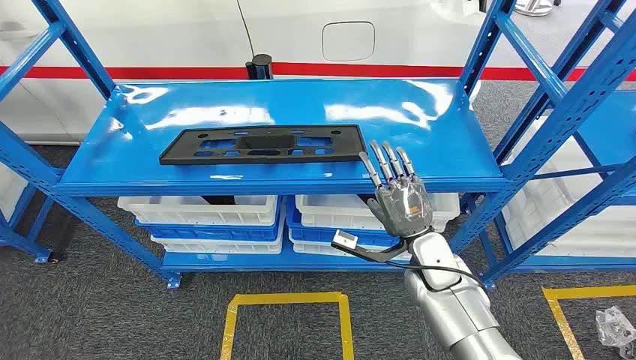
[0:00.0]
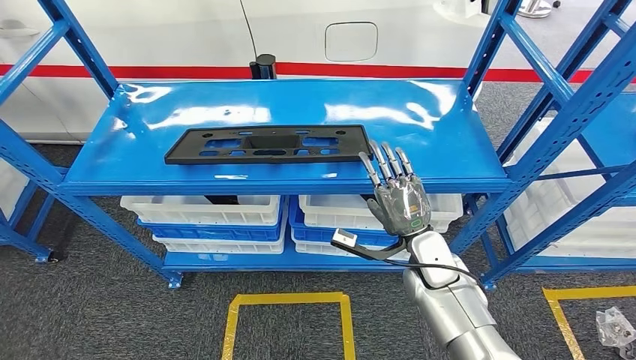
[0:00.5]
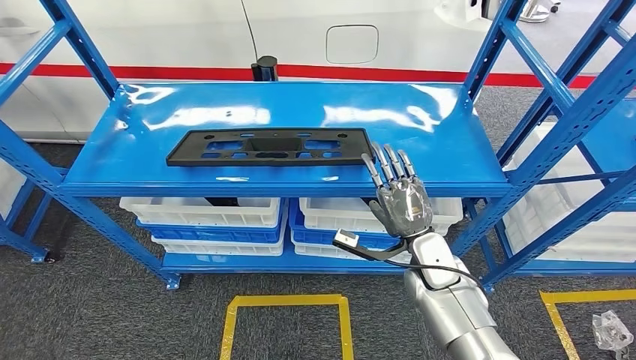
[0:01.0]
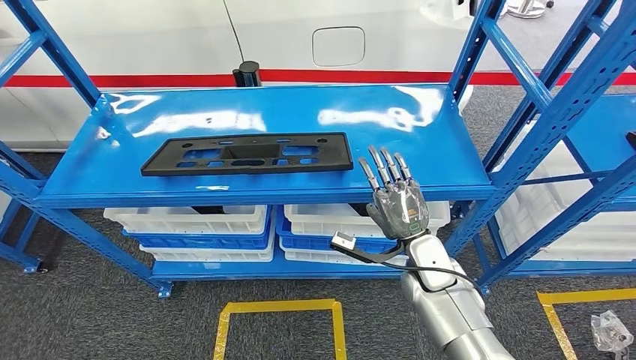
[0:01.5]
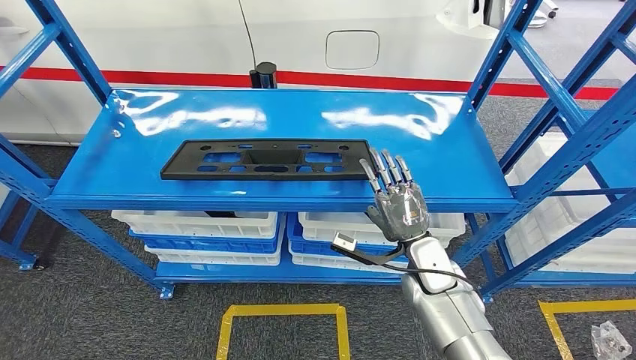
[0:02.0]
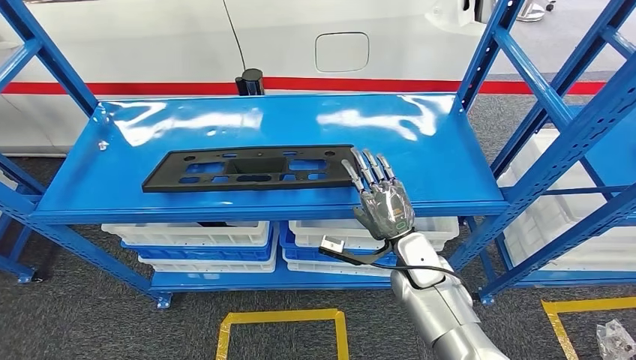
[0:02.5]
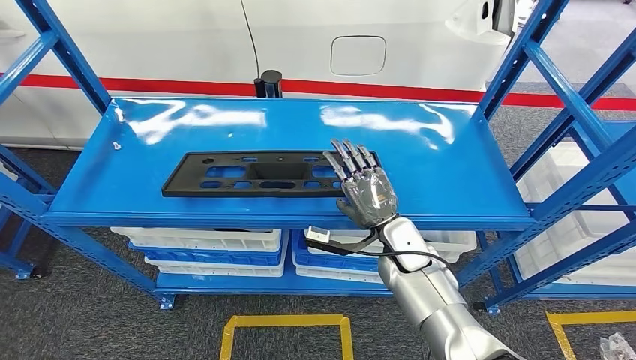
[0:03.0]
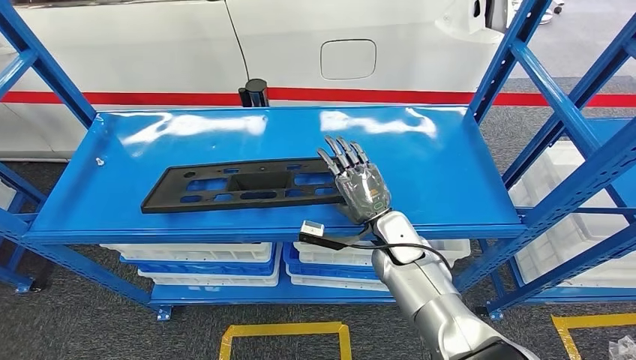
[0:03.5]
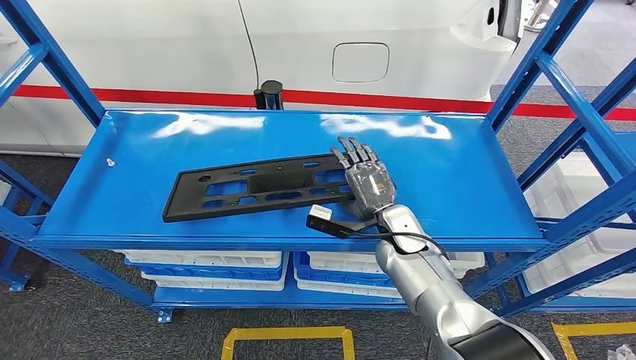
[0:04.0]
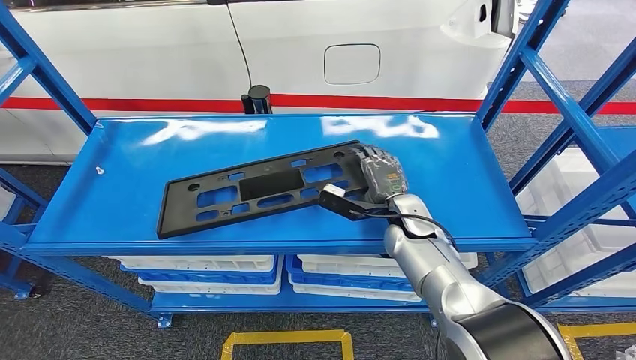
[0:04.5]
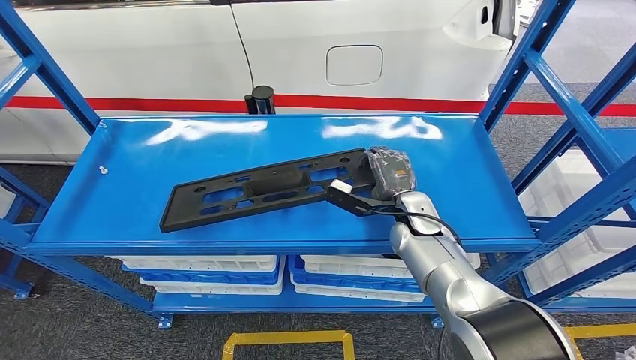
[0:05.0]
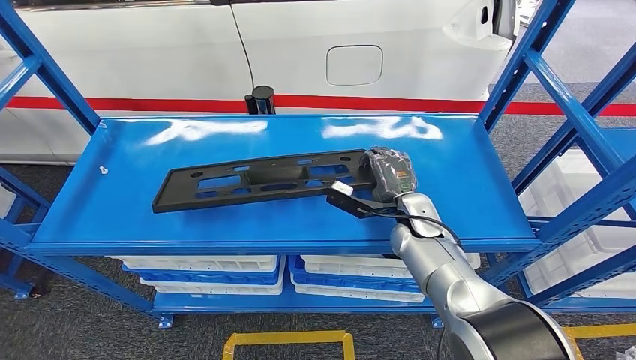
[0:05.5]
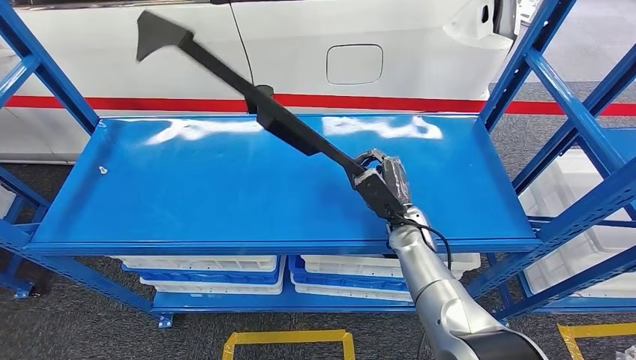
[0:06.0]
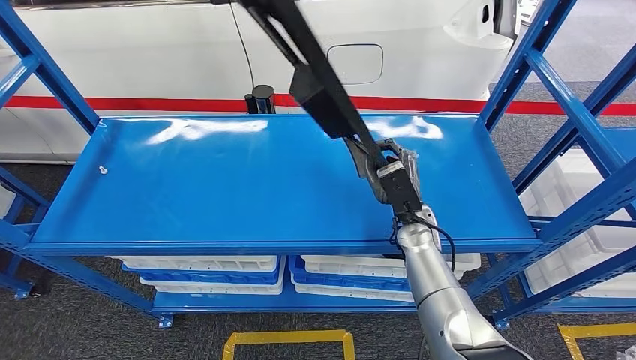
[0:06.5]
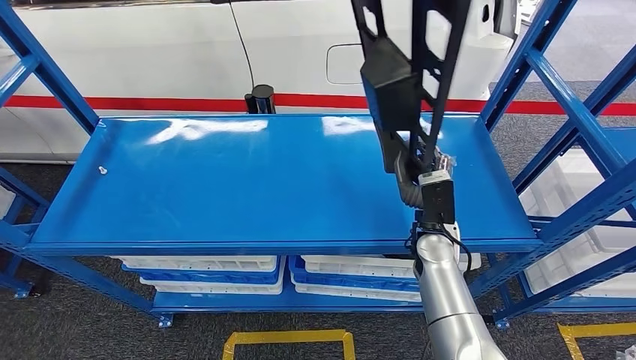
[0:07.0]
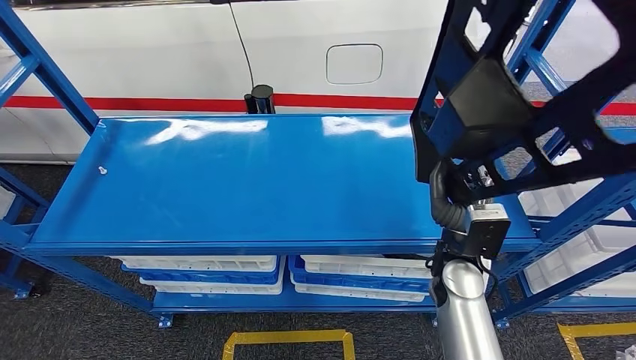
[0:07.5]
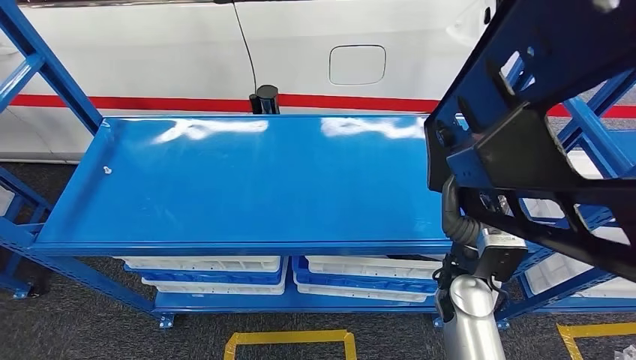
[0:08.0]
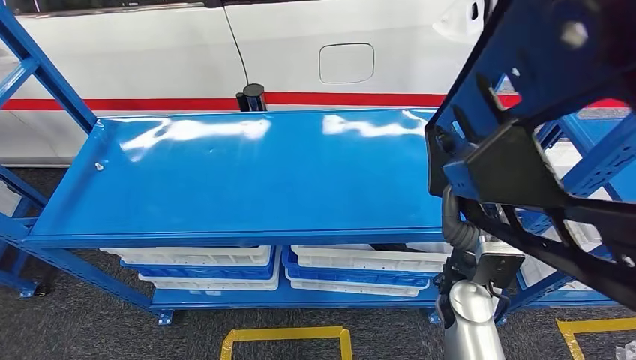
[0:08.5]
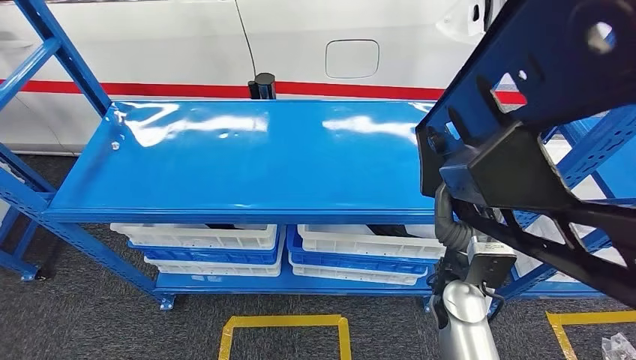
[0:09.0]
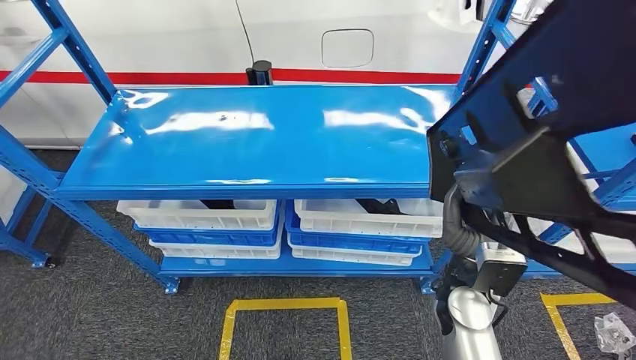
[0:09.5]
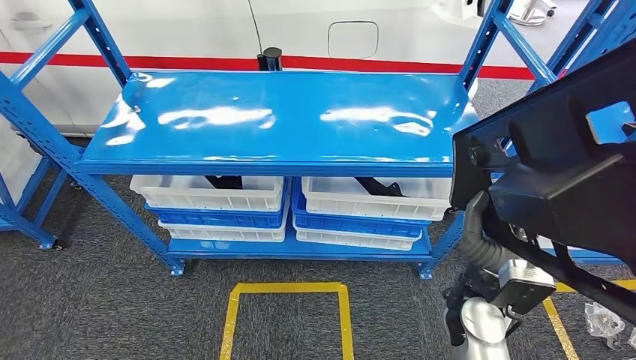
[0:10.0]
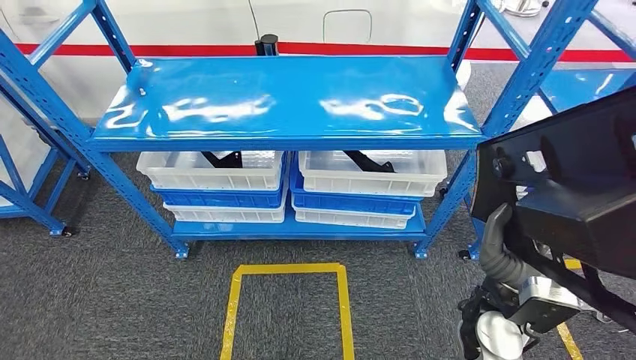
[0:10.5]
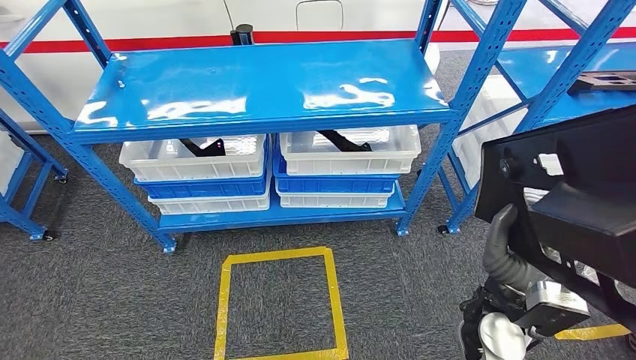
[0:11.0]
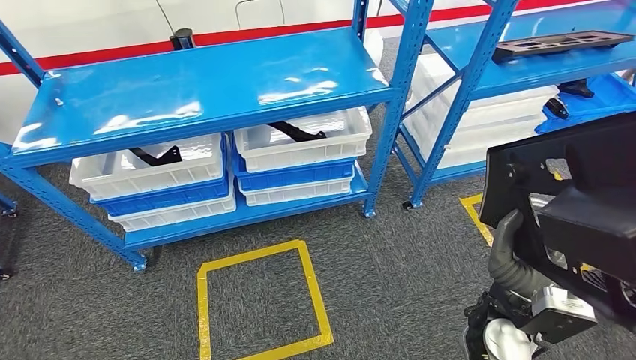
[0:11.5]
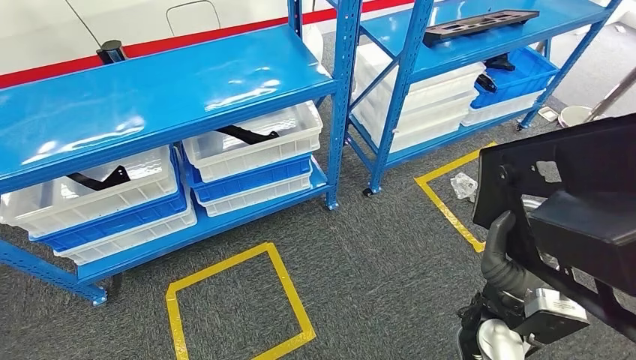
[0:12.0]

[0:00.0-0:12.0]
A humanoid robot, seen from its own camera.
Step, 0:00.0 to 0:08.0: Pick up the large material from the shelf.

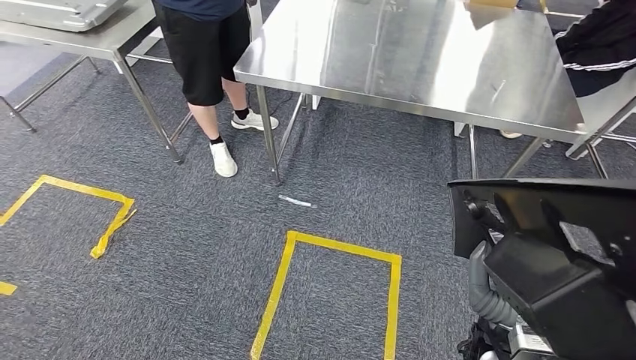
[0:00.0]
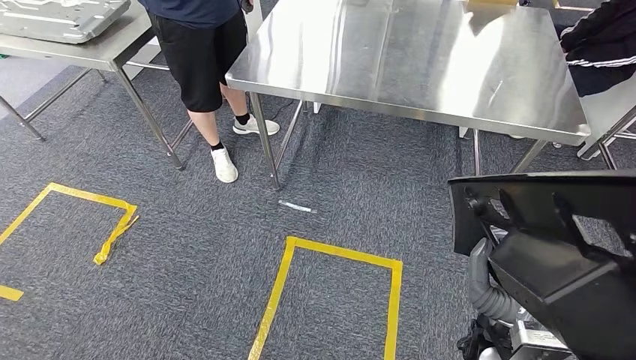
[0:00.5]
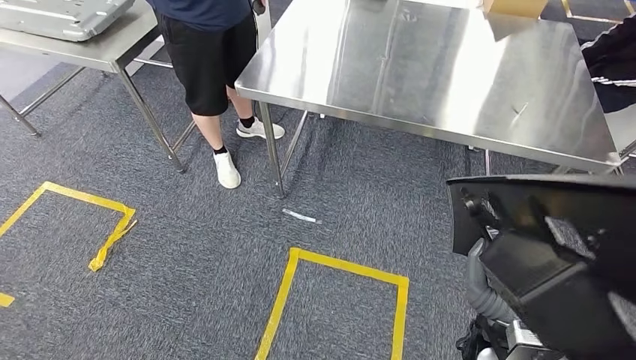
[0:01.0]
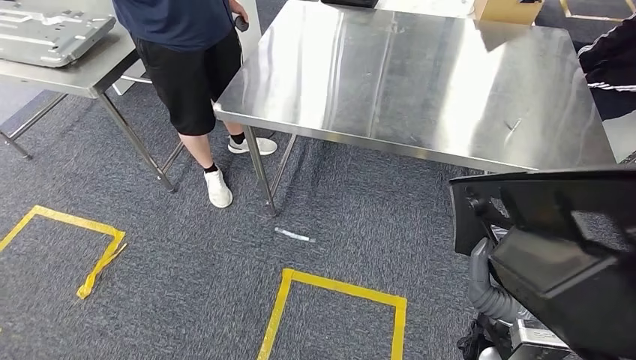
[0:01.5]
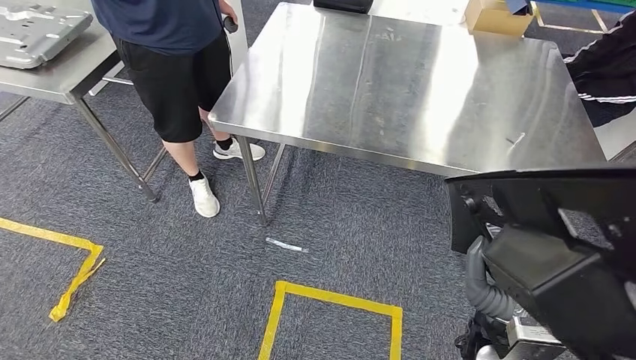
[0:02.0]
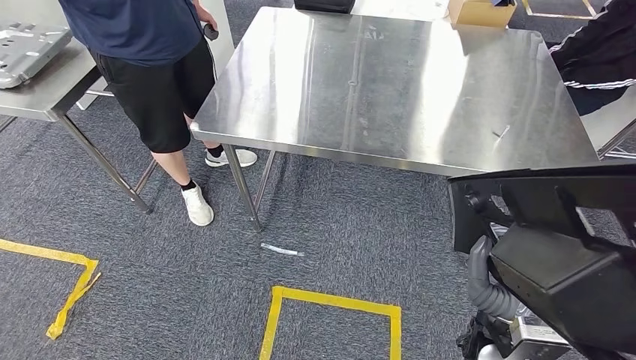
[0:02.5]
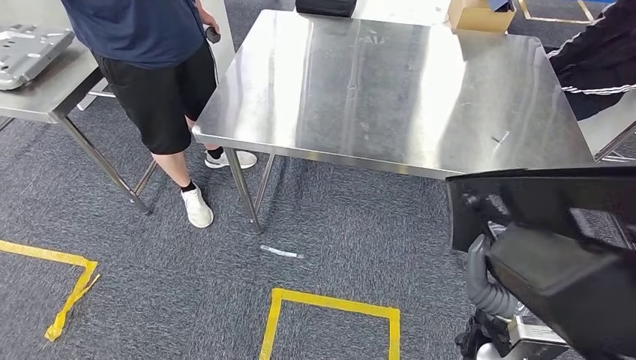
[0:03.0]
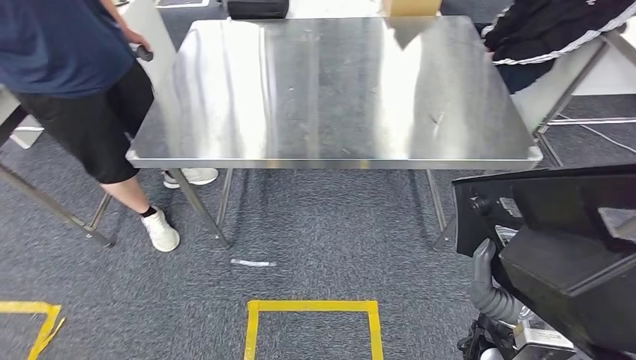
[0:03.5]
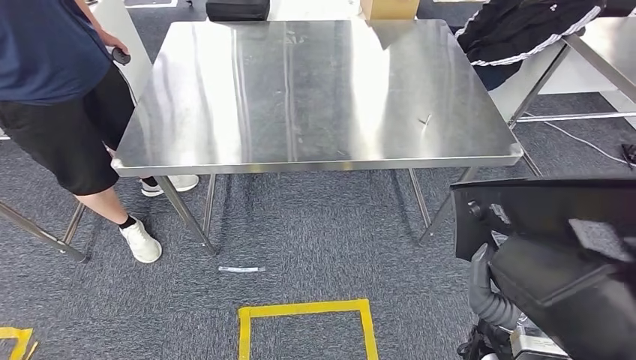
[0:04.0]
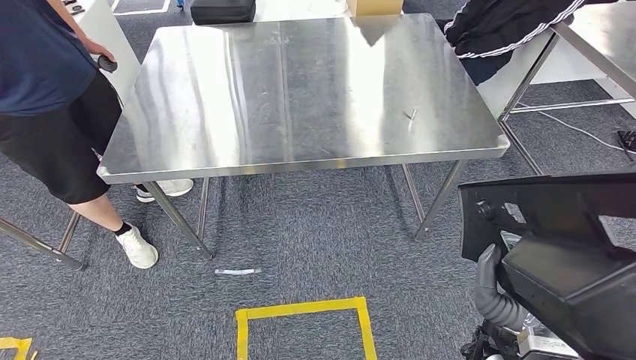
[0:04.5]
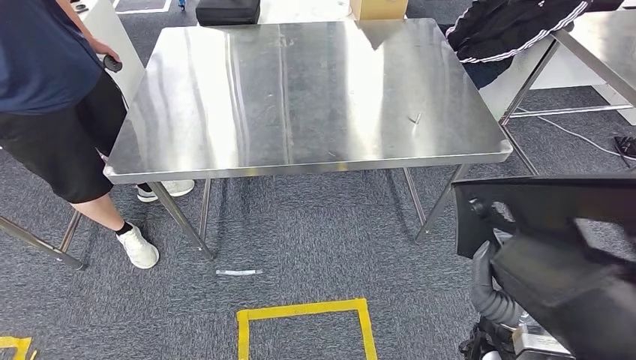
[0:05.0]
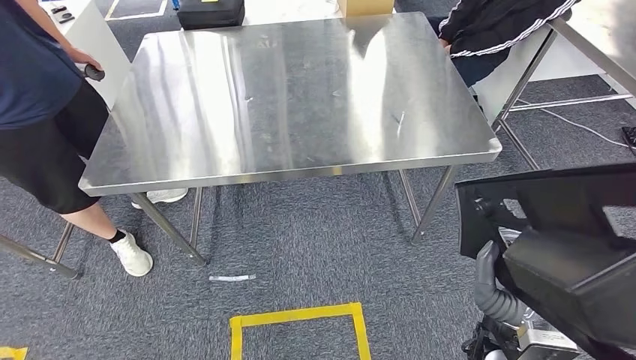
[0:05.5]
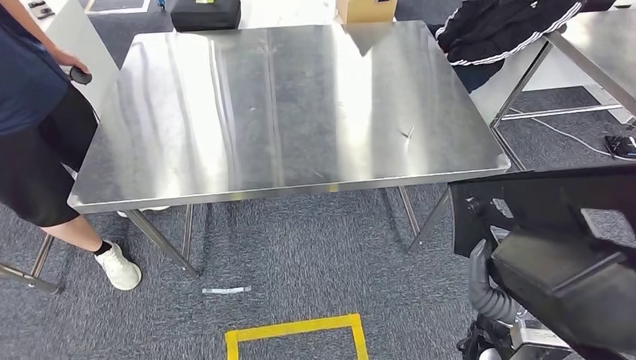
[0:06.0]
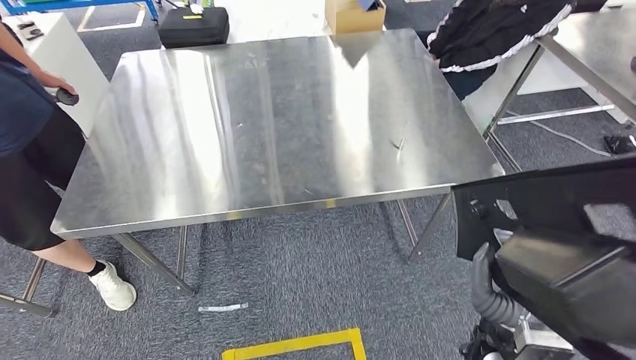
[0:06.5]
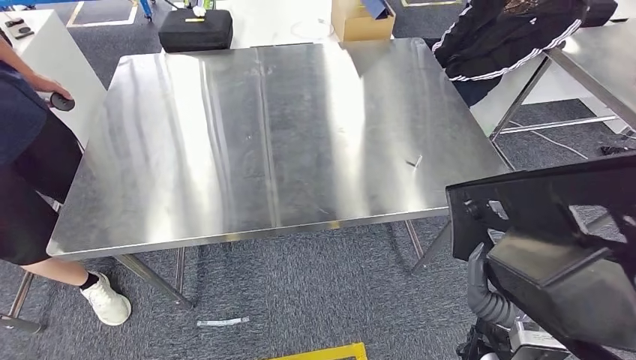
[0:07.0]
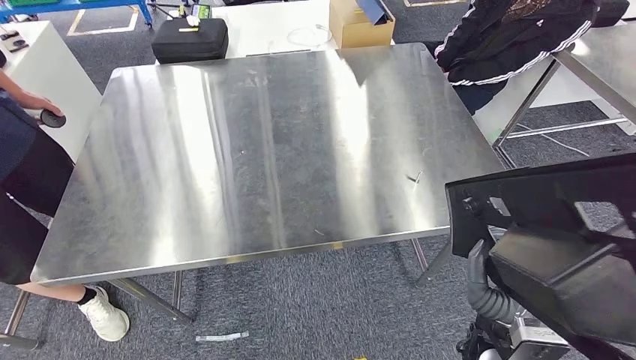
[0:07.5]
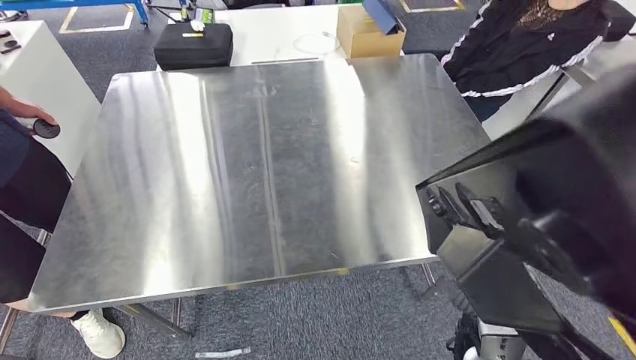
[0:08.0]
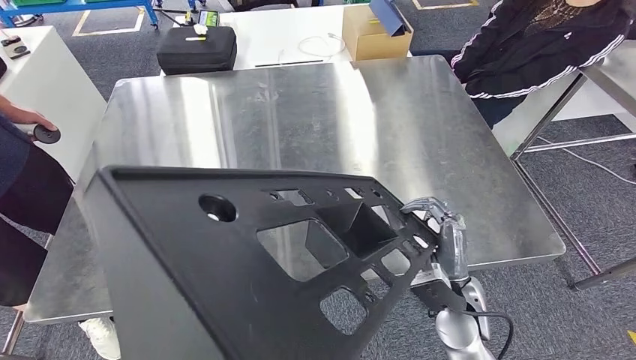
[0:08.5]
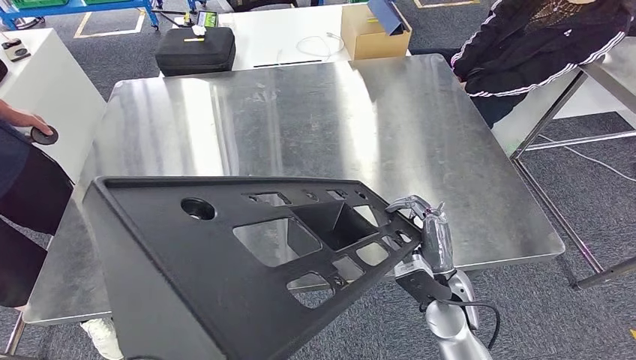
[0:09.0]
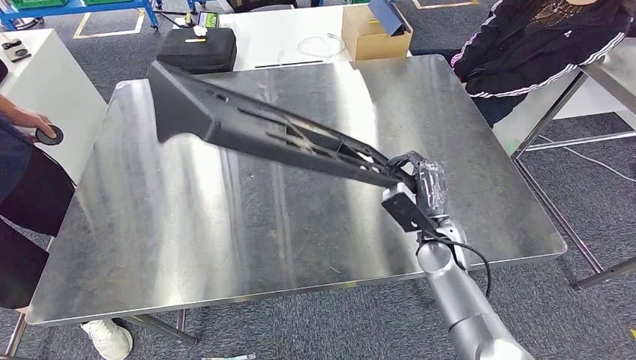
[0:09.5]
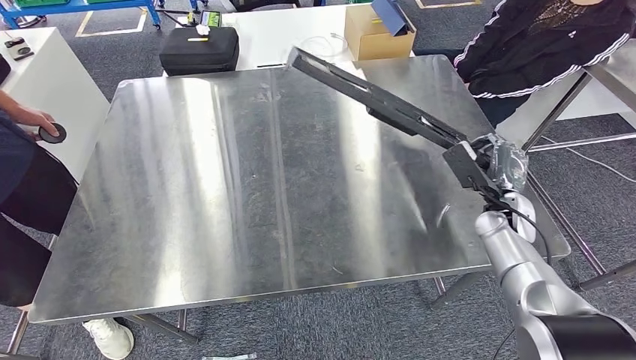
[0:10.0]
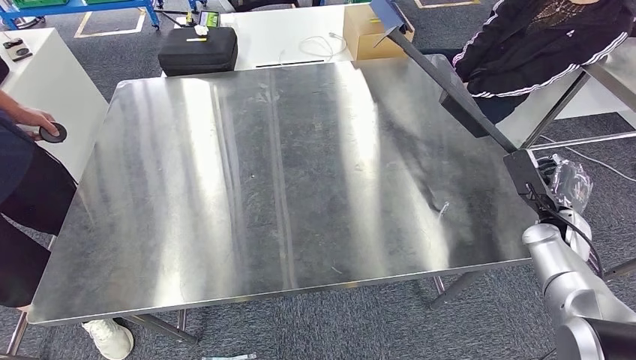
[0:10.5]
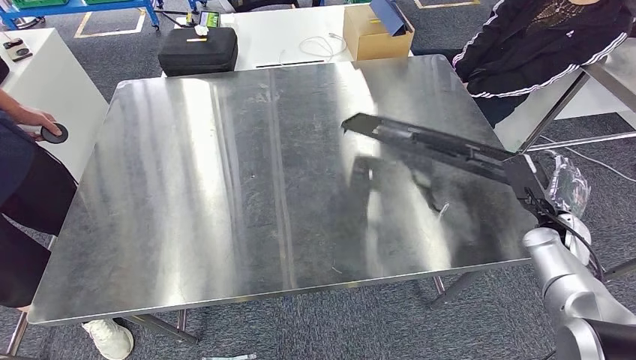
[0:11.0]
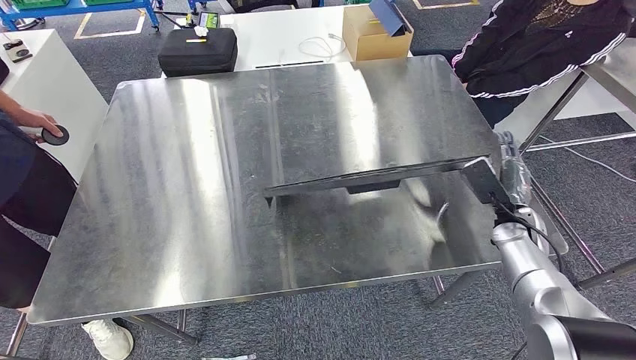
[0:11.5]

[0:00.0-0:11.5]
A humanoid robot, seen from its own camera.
Step, 0:00.0 to 0:03.0: Move the large material to the front of the workbench.
